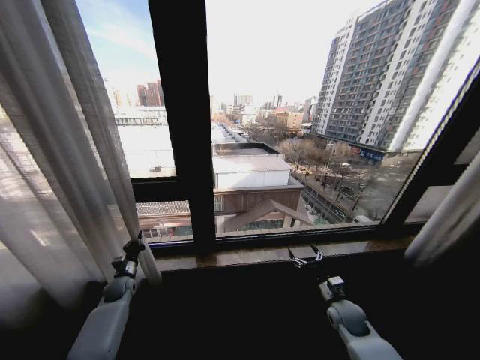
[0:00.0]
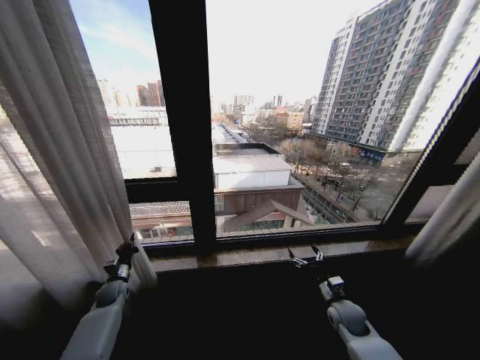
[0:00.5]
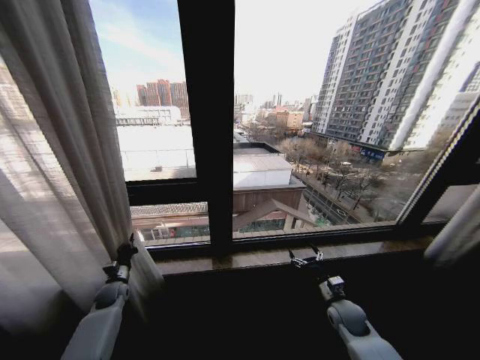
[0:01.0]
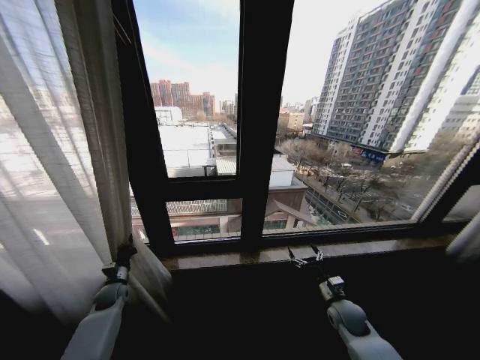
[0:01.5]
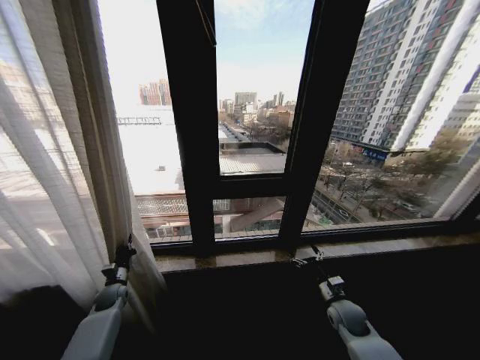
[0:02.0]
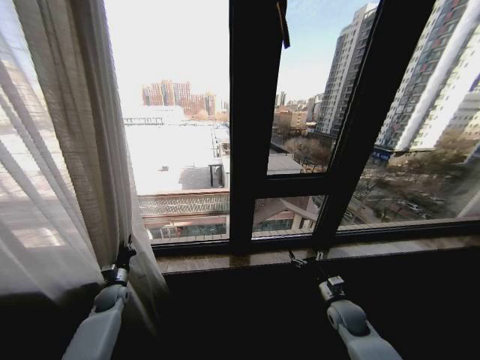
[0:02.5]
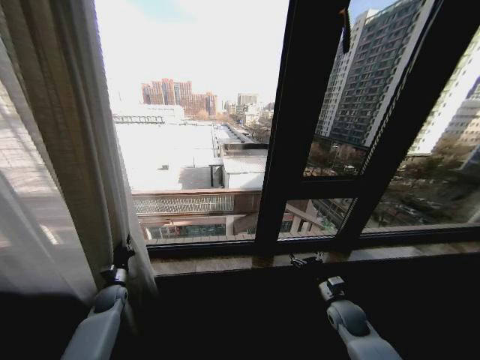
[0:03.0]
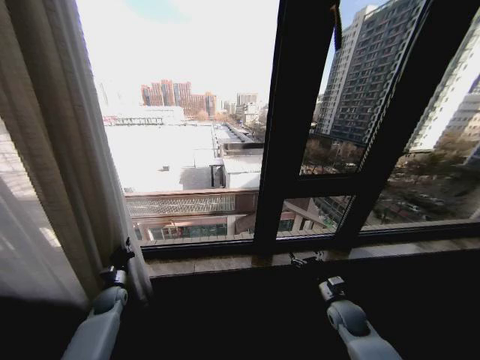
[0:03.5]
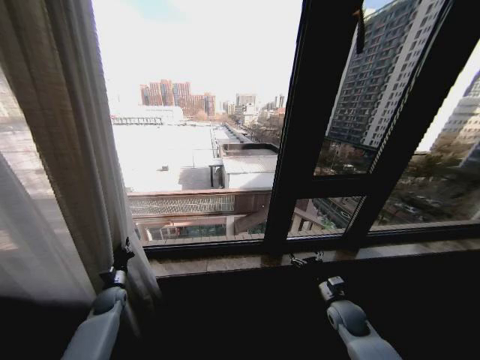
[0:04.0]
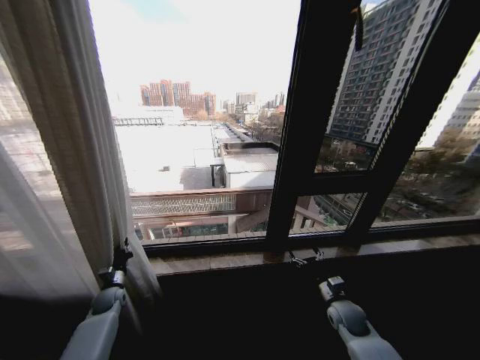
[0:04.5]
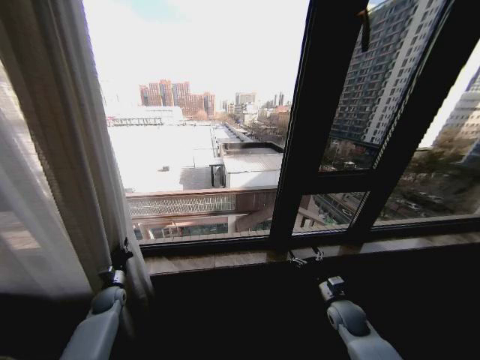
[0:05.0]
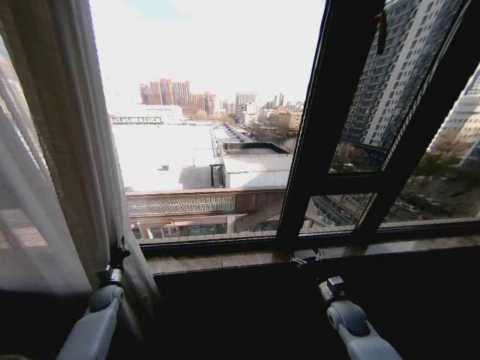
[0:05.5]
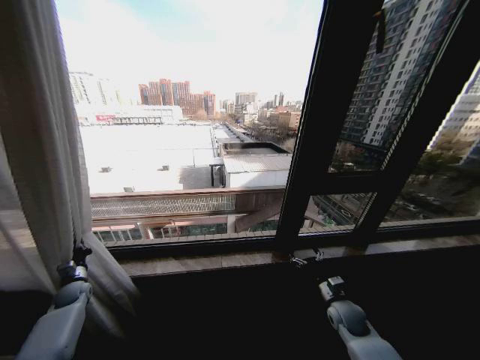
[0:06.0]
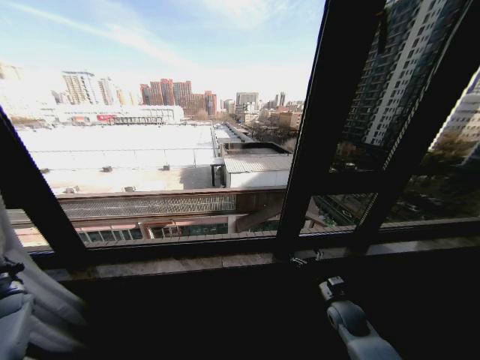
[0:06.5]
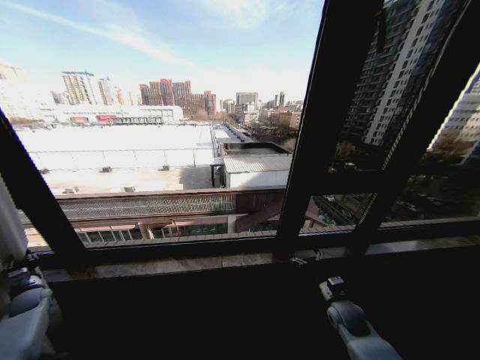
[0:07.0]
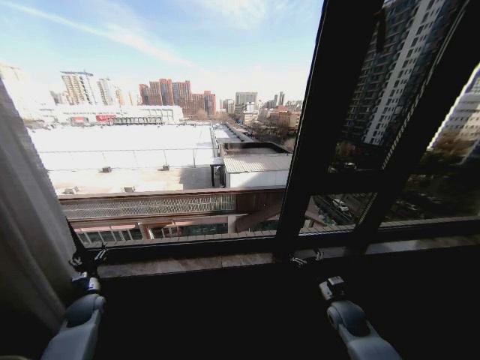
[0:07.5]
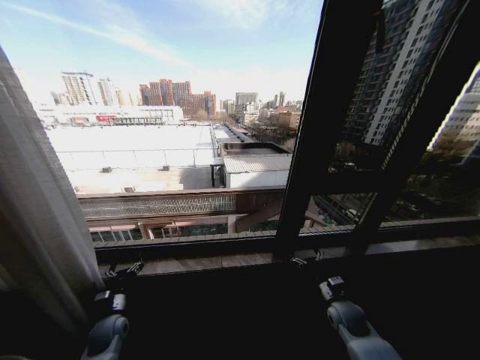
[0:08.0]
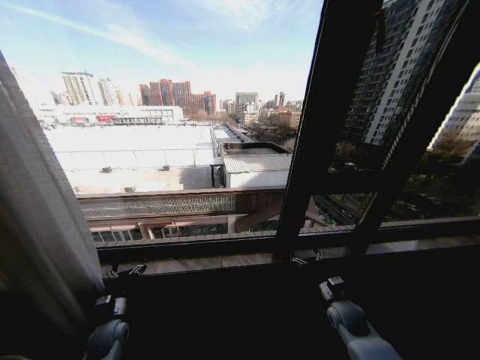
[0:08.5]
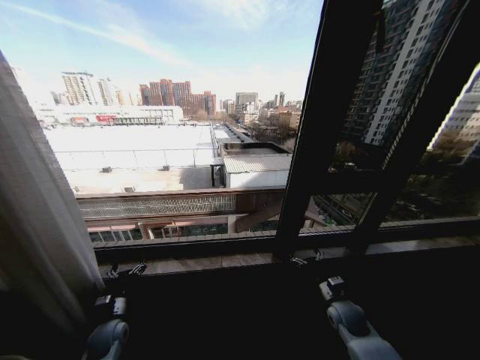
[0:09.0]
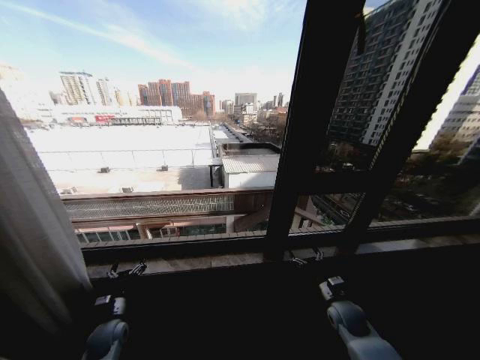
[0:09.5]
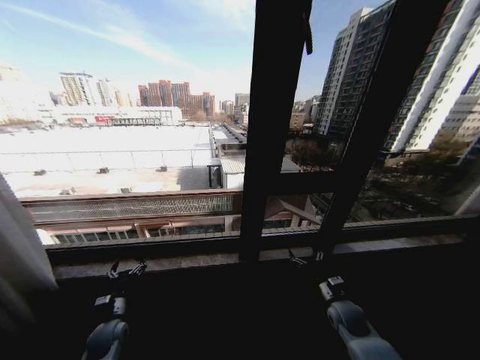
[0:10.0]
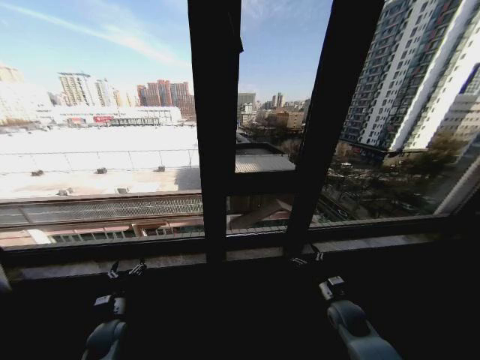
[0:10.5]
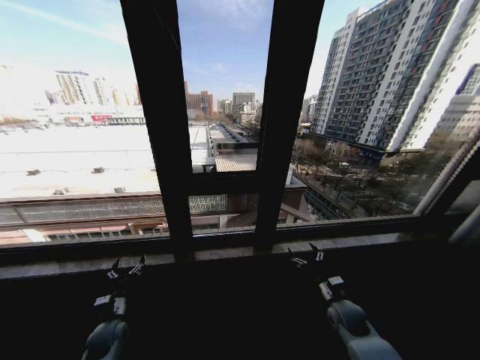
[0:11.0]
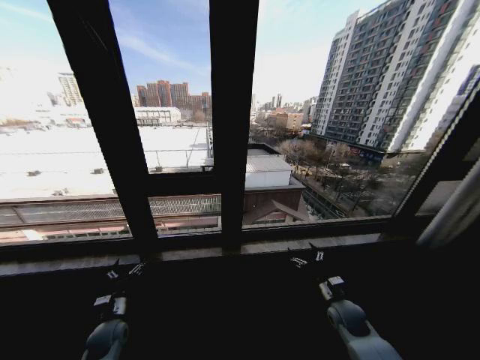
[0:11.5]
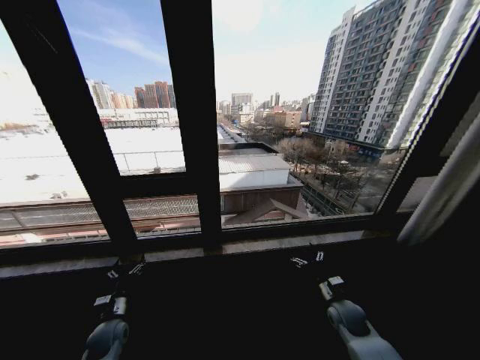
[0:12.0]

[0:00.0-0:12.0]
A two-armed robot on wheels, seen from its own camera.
Task of the whole recording: Open the curtains by pulling them apart, changing their state from closed to fully open.
0:04.0 to 0:06.0: The left gripper goes about 10 cm to the left.
0:06.0 to 0:08.0: The left gripper heads to the right and backward, covering roughly 20 cm, and opens.

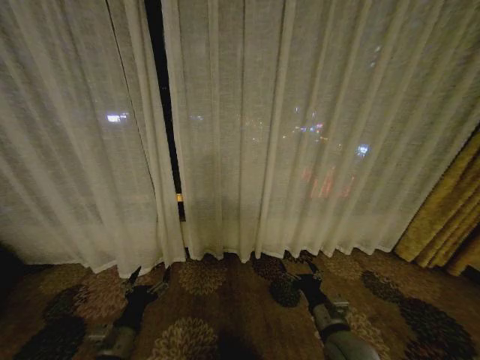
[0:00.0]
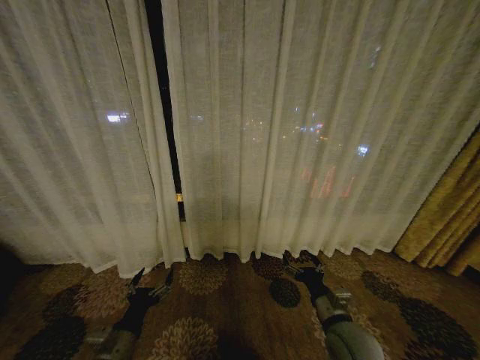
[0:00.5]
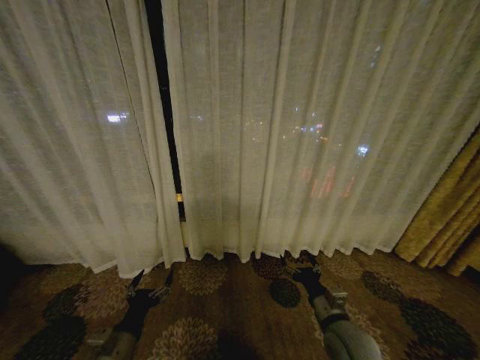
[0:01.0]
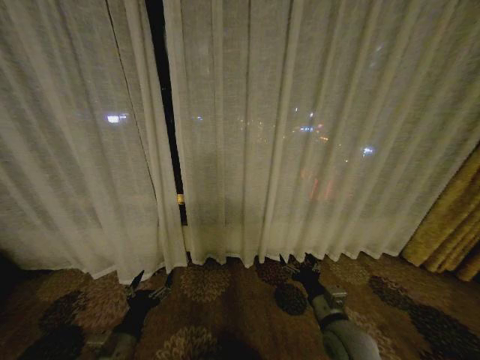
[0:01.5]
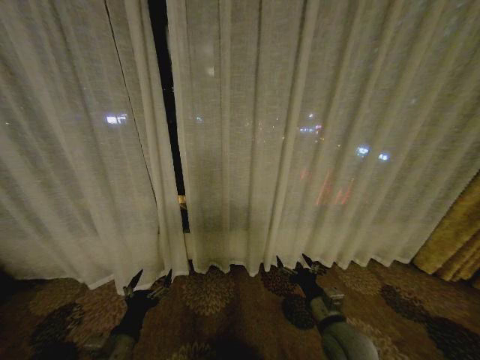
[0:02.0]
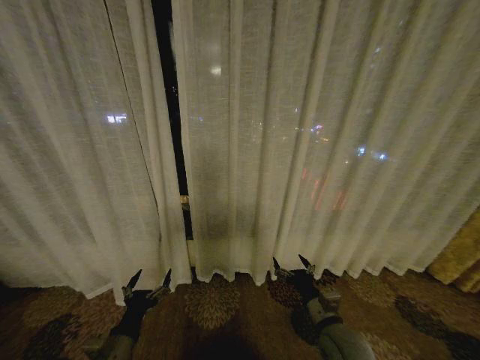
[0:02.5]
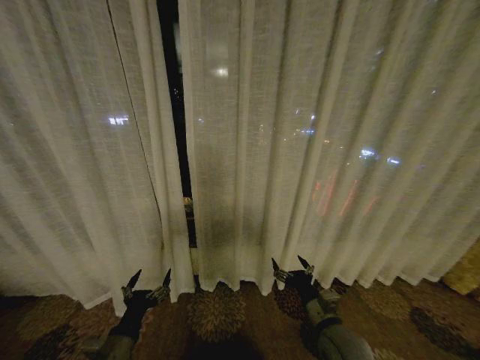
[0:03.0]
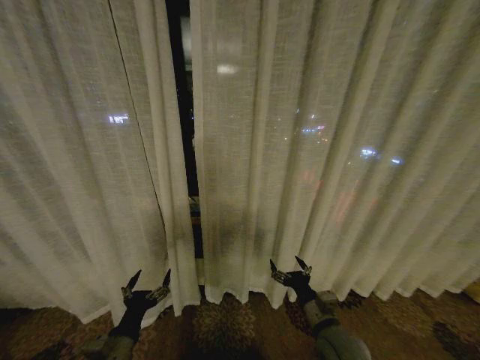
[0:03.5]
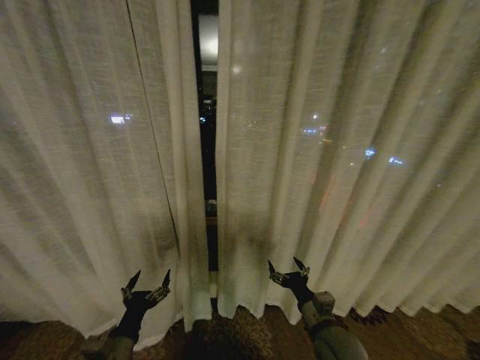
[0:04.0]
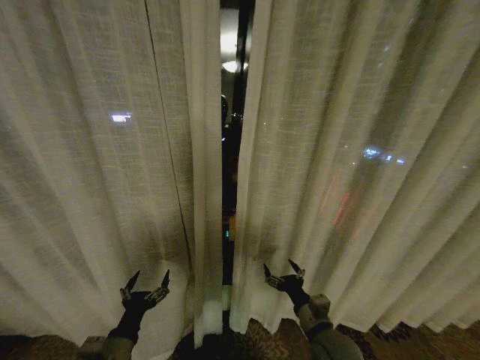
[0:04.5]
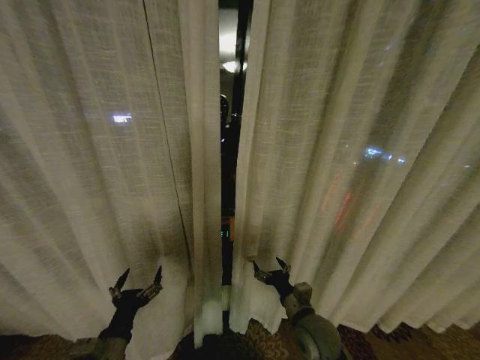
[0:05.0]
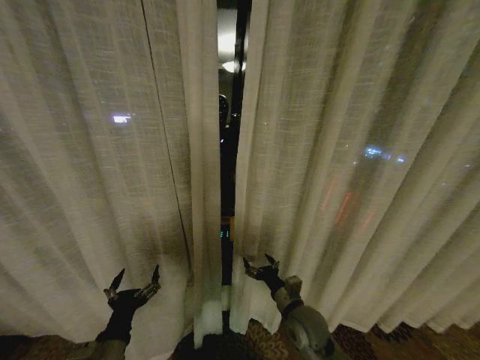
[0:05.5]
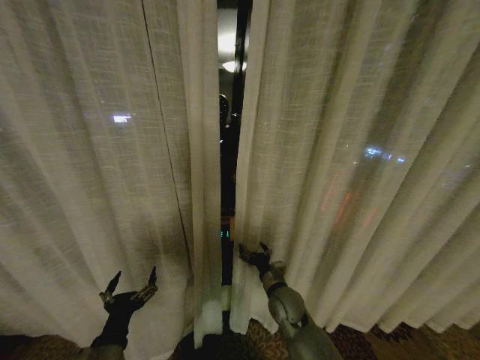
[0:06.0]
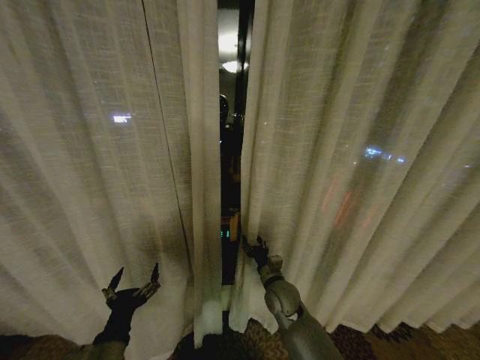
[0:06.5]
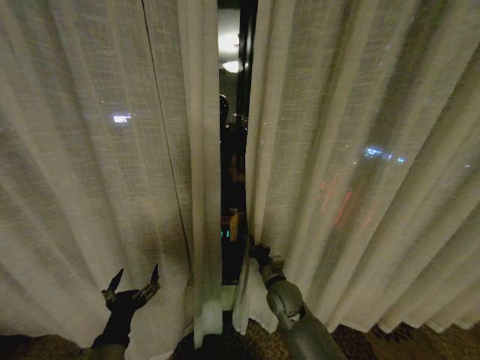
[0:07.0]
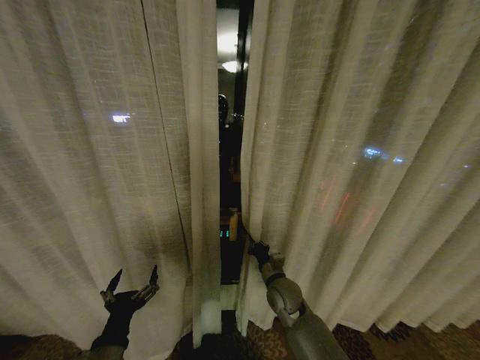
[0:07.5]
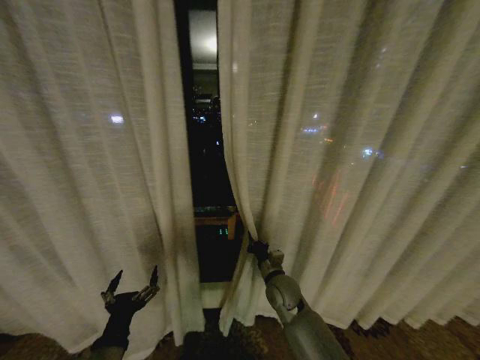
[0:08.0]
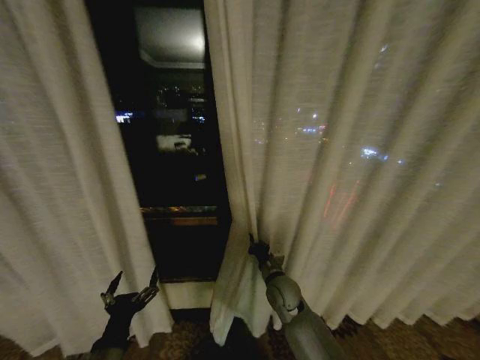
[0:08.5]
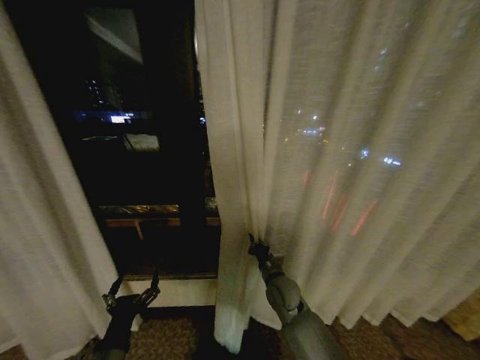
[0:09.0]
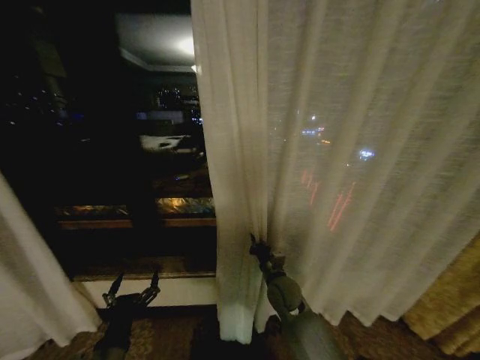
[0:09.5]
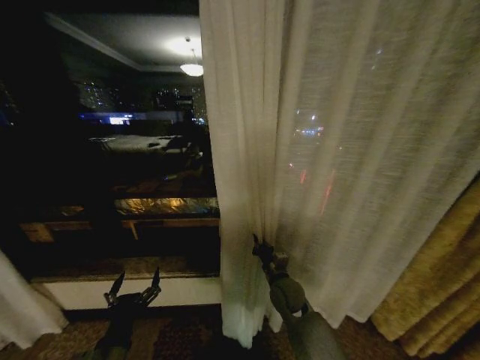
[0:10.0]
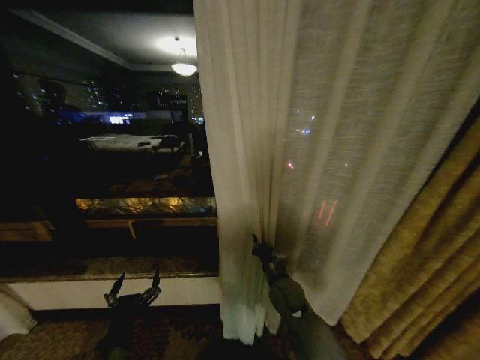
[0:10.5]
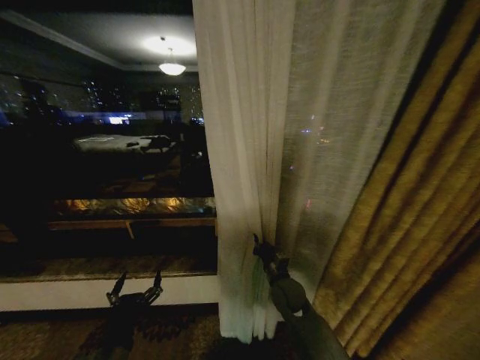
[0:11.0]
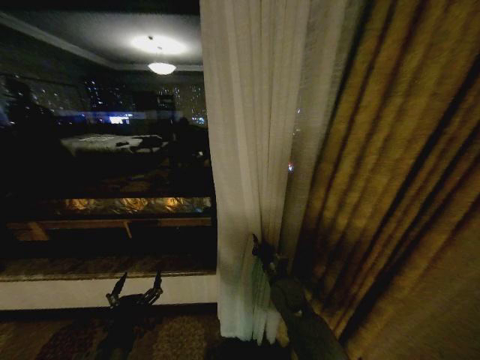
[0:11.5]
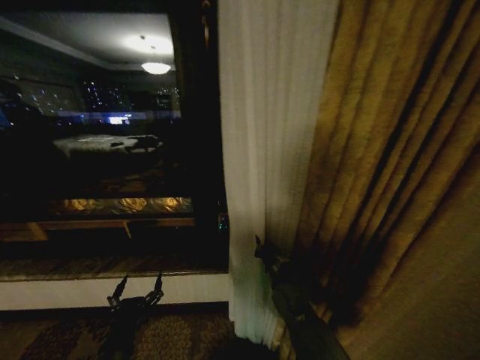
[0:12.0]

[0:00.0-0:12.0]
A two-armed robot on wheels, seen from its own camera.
Task of the whole recording: Open the curtains by pulling them apart, changing their state from closed to fully open.
0:04.0 to 0:06.0: The right gripper heads forward and to the left, covering approximately 15 cm.
0:06.0 to 0:08.0: The right gripper closes its fingers.

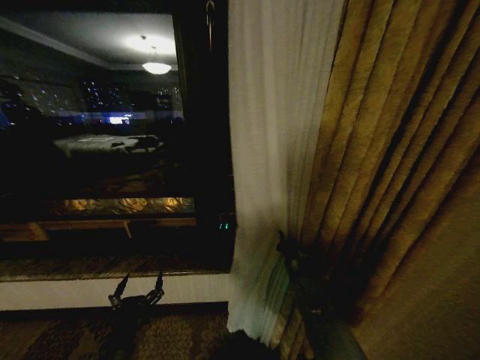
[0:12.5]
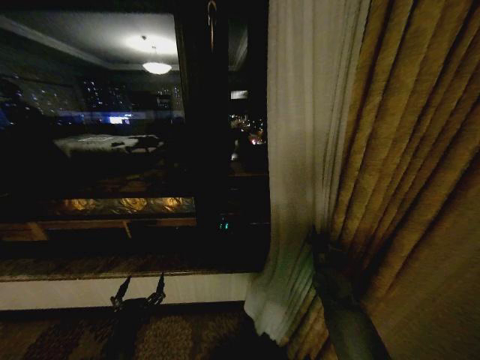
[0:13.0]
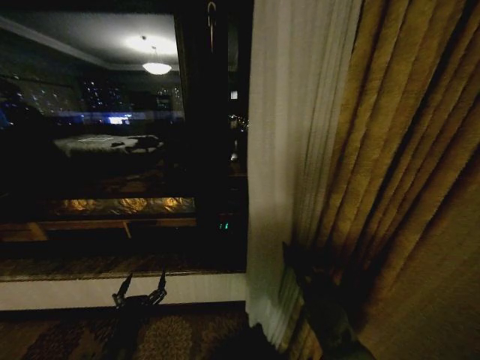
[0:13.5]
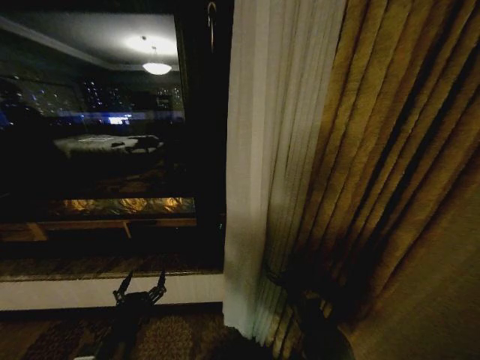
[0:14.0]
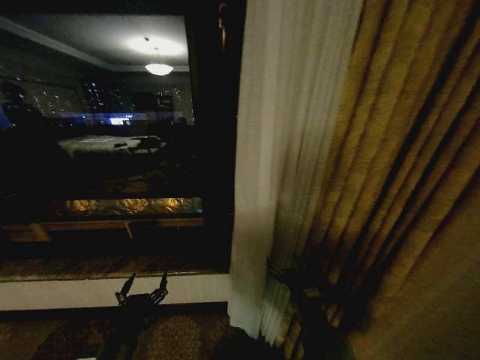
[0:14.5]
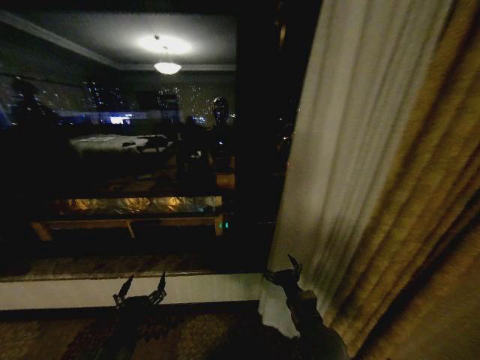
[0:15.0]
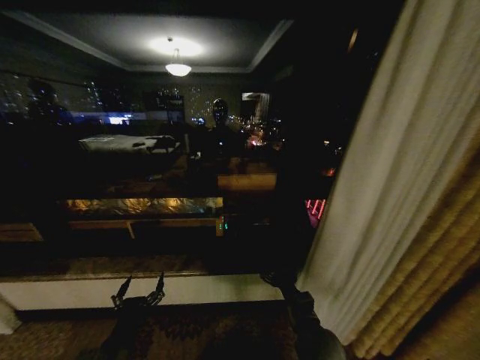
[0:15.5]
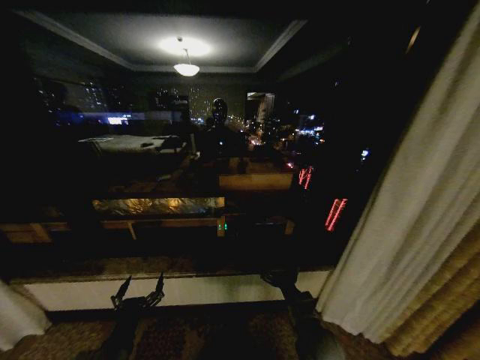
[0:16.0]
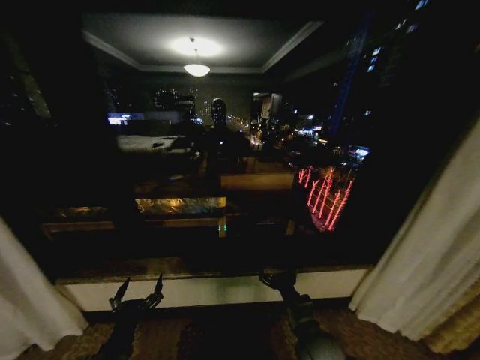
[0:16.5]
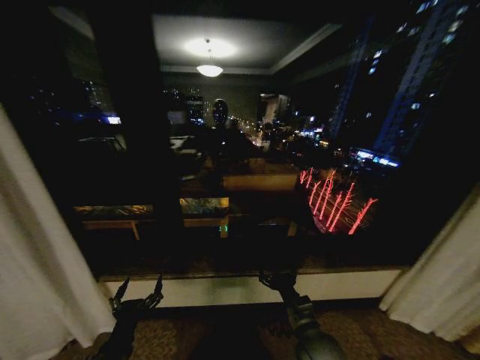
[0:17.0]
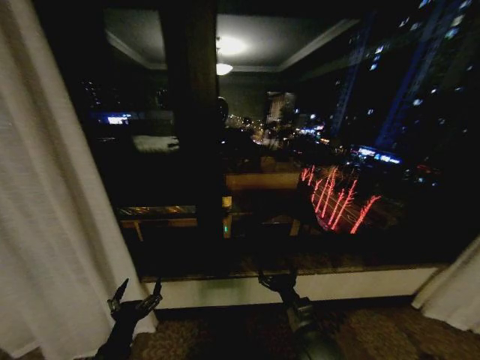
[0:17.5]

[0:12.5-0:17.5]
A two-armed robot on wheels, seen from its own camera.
Task of the whole recording: Open the curtains by pulling them apart, changing their state from closed to fully open.
0:12.5 to 0:15.0: The right gripper goes roughly 15 cm backward, and opens up.
